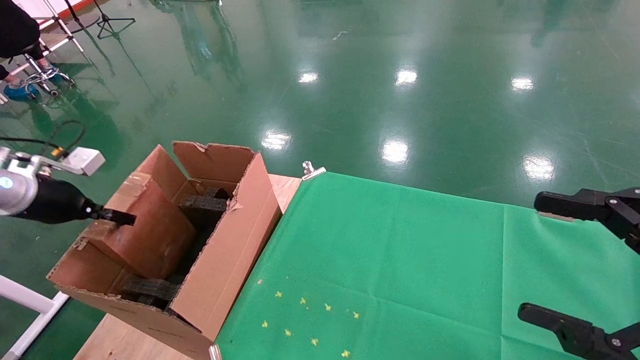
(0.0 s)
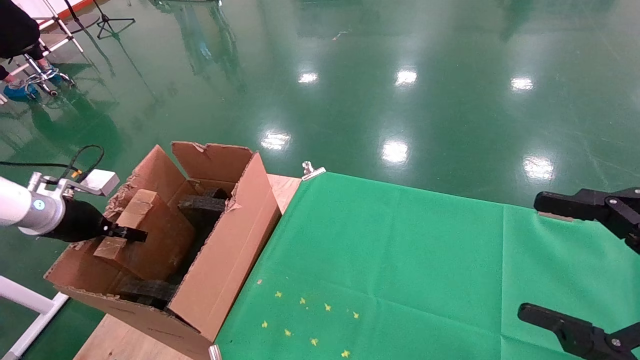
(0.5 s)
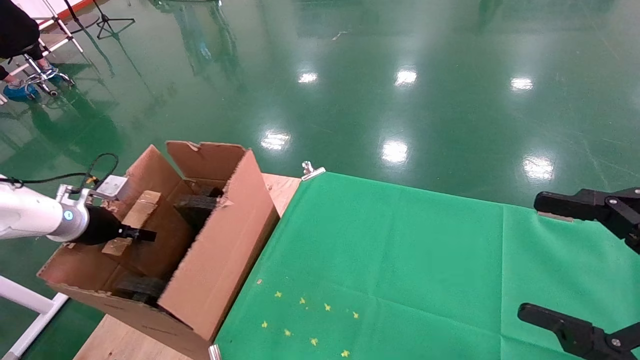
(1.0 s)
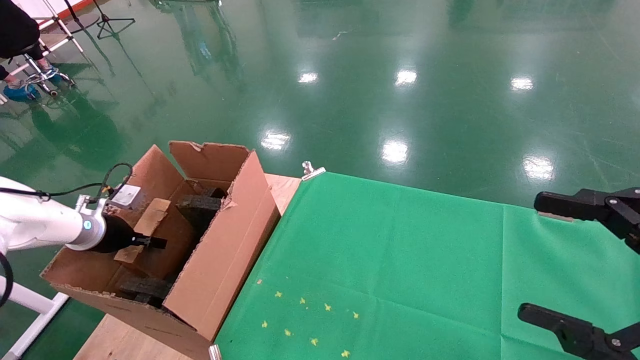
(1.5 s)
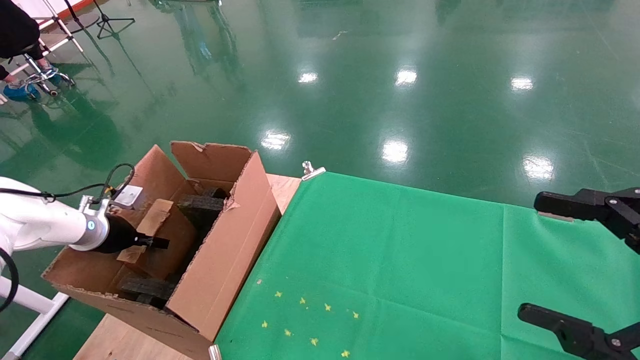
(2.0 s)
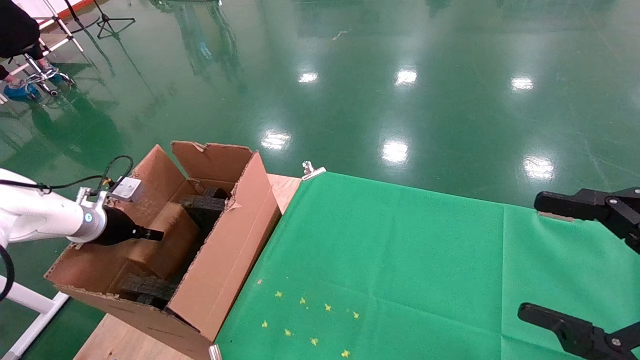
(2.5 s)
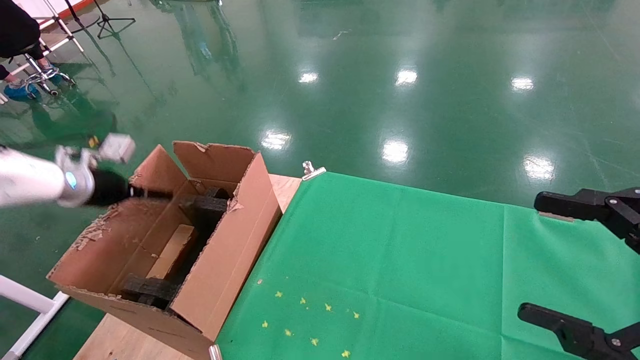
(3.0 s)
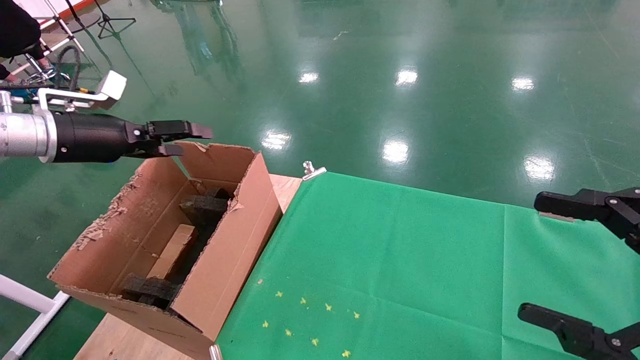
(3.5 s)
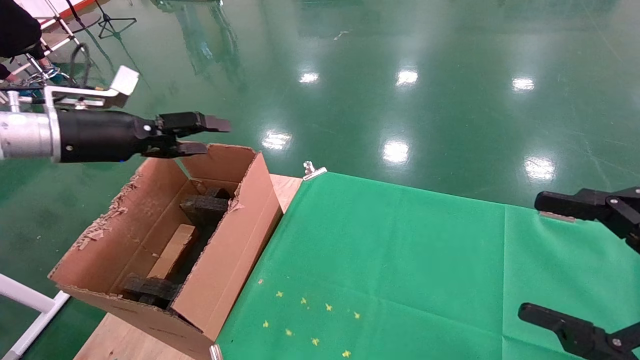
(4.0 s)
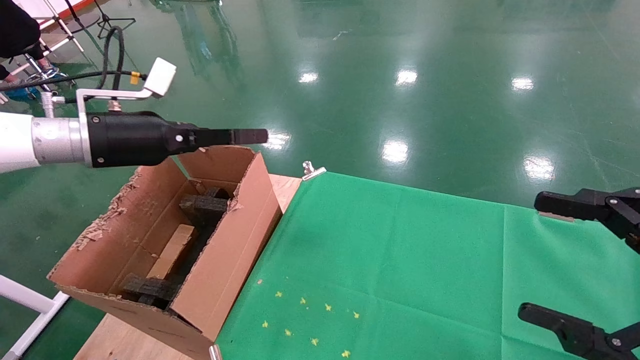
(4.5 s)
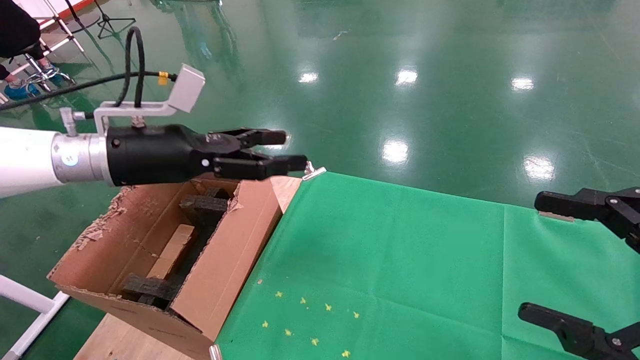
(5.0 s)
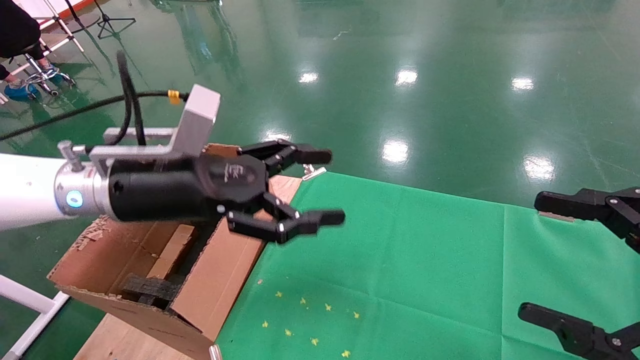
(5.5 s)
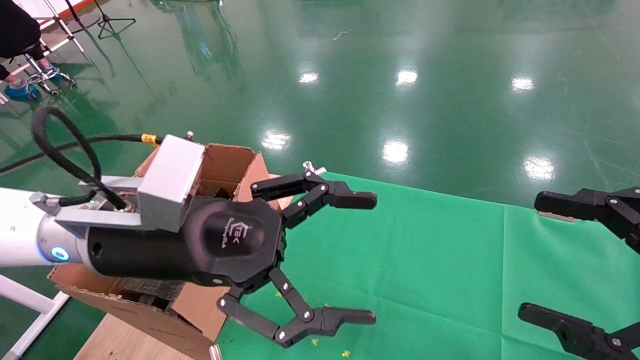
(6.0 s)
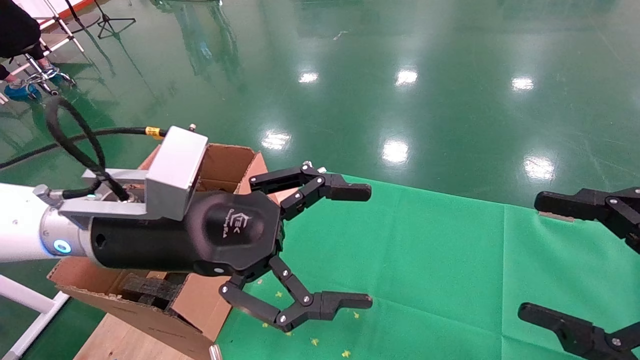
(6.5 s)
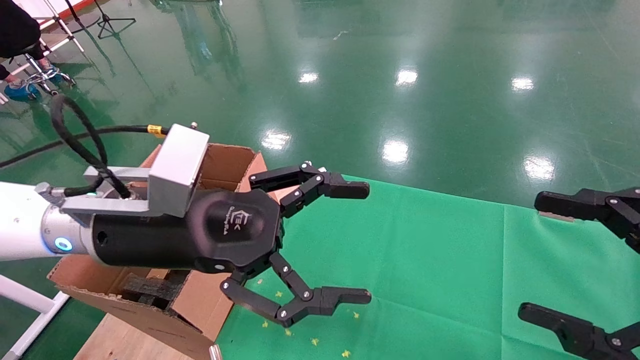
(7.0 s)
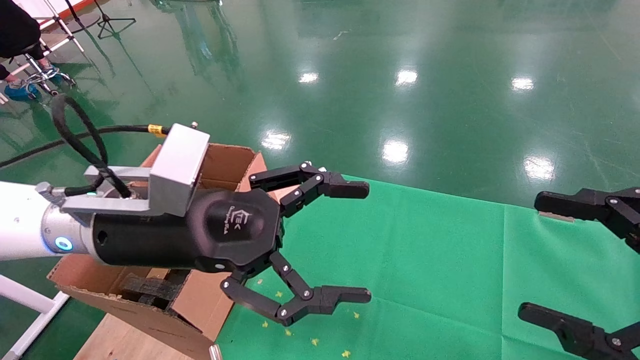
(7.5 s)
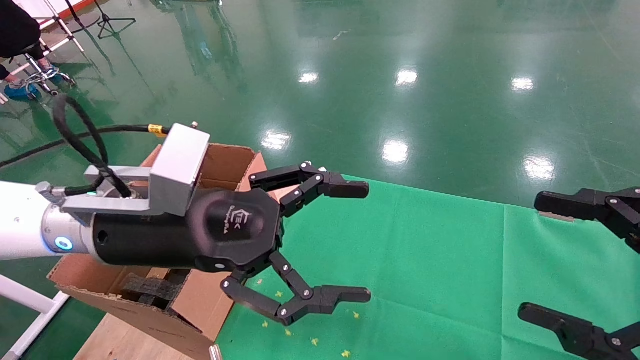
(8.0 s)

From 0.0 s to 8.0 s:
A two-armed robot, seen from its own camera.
Task of the whole recording: using a robotic arm to pick up a cardboard box and palace it the carton.
Step, from 0.0 s to 3.5 s: Place the mouse and the power cord paper box into the container.
From 0.0 s to 2.0 s: The left gripper travels downward and forward by approximately 10 cm.
From 2.0 s to 4.0 s: The left gripper travels upward and to the right by roughly 20 cm, and opens its fingers.
From 4.0 s to 6.0 s: The left gripper moves to the right and backward, about 25 cm.
From 6.0 s to 8.0 s: Neither gripper changes place.
